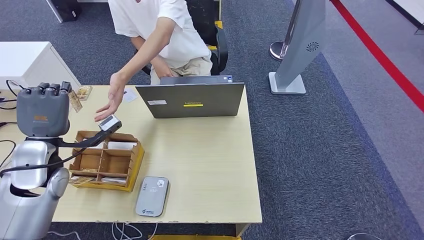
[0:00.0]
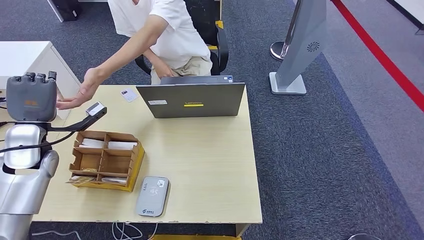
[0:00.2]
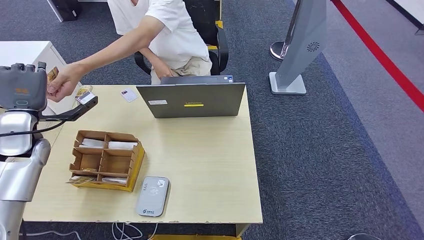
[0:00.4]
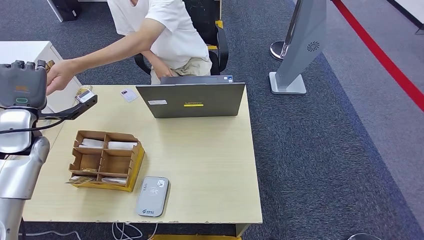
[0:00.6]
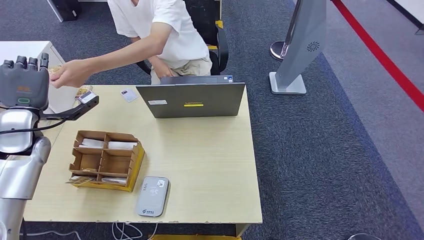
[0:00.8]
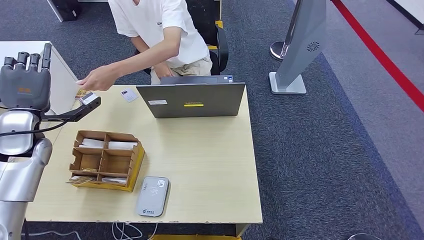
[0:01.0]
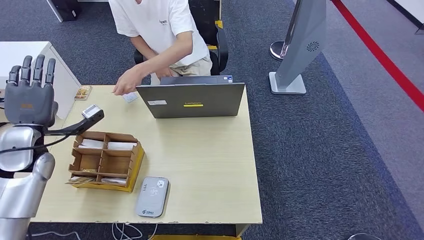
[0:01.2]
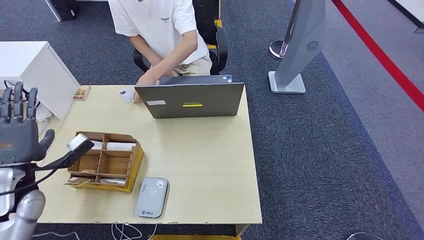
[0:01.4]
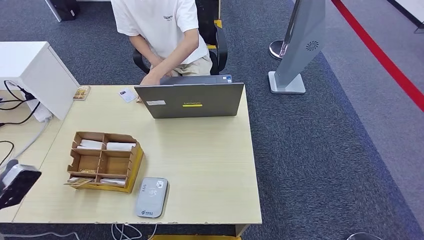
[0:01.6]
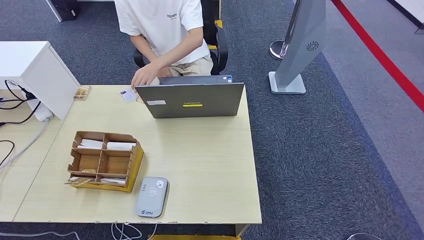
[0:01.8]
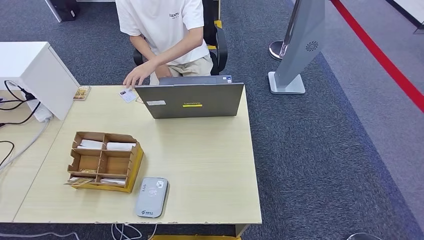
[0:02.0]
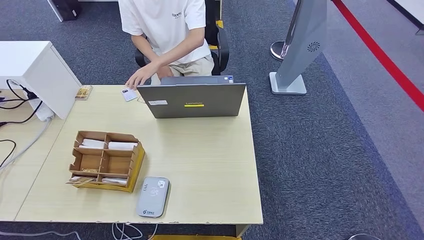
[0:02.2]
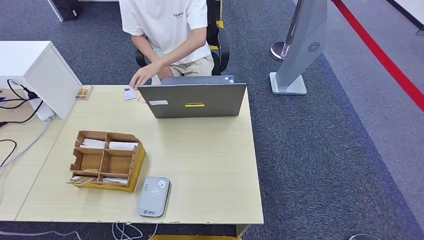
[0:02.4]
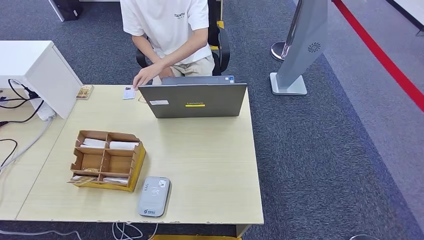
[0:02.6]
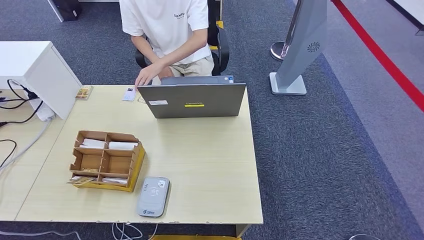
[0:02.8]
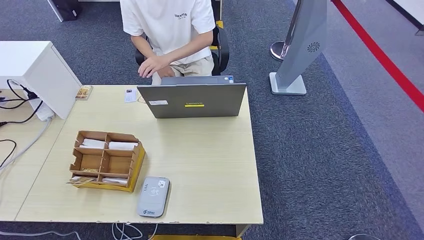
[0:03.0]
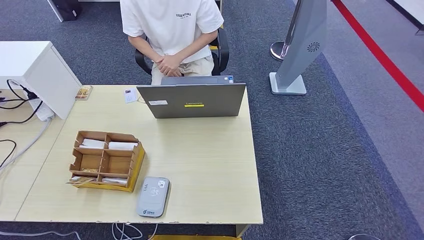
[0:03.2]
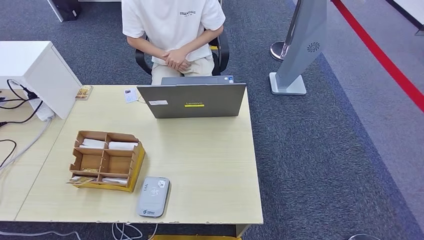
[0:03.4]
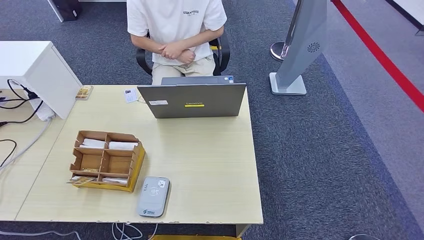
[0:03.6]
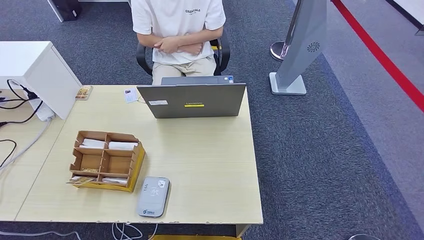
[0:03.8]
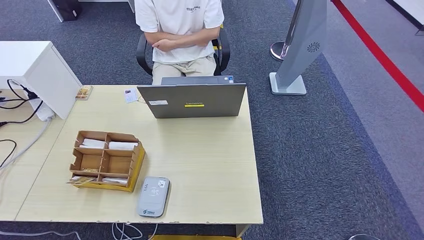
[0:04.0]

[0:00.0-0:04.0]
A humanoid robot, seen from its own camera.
Step, 0:00.0 to 0:04.0: Hand the room key to the person.
0:00.0 to 0:01.4: The left hand travels to the left and downward by some 10 cm, and goes forward and returns, approximately 5 cm each way.
0:01.4 to 0:02.6: The left hand is displaced downward and backward by some 40 cm.
0:02.6 to 0:04.0: The left hand is displaced to the right by approximately 10 cm.
